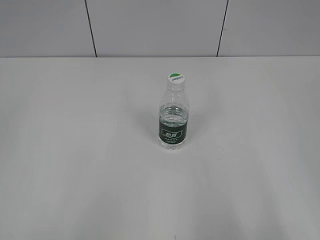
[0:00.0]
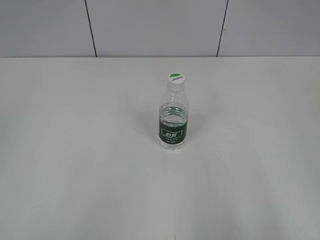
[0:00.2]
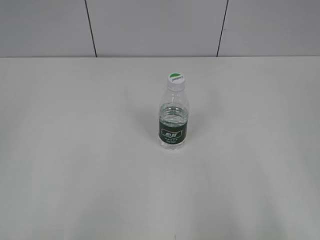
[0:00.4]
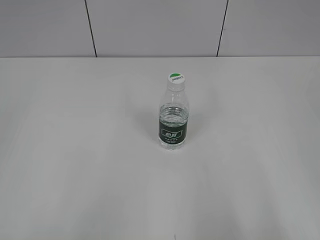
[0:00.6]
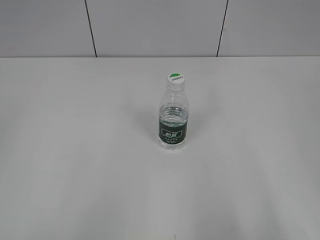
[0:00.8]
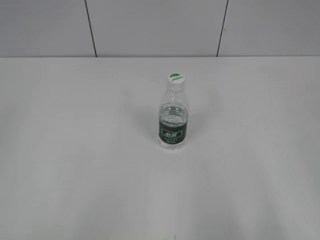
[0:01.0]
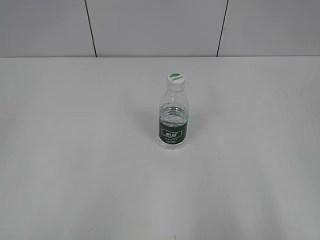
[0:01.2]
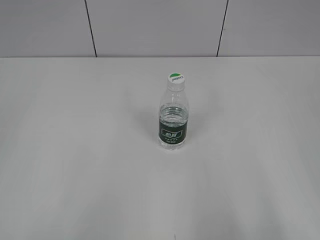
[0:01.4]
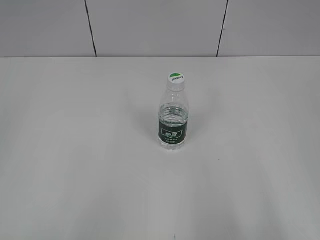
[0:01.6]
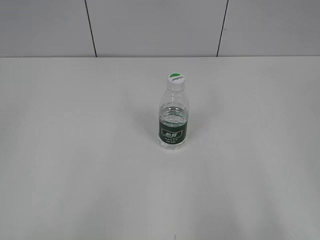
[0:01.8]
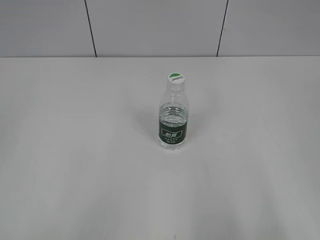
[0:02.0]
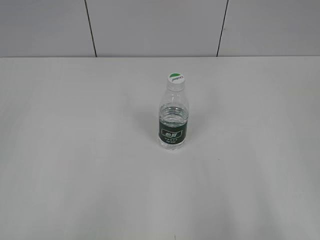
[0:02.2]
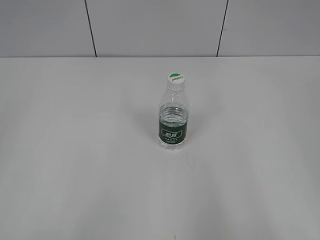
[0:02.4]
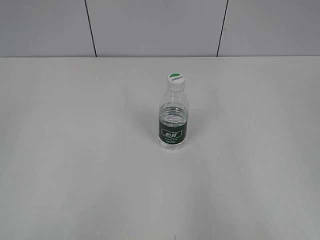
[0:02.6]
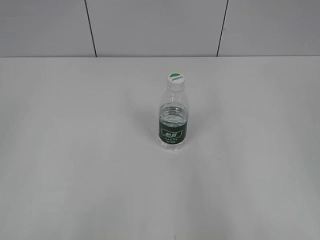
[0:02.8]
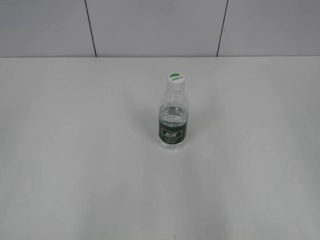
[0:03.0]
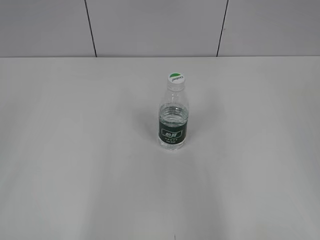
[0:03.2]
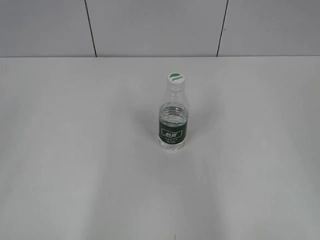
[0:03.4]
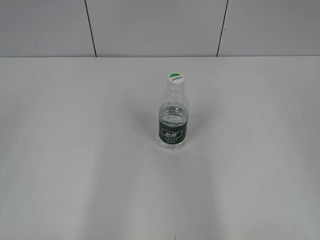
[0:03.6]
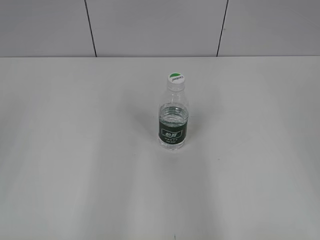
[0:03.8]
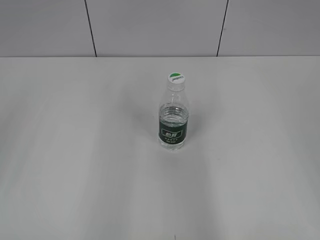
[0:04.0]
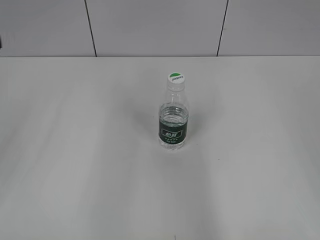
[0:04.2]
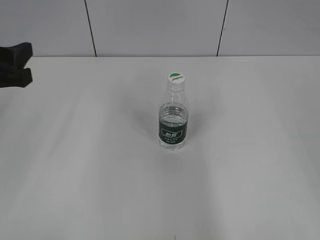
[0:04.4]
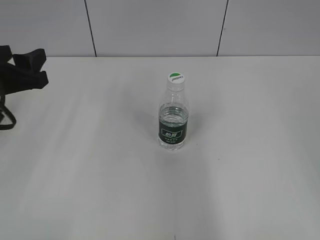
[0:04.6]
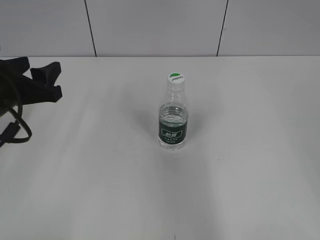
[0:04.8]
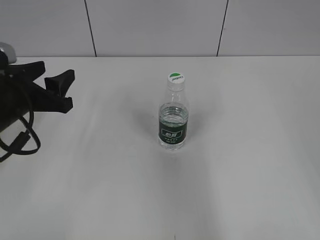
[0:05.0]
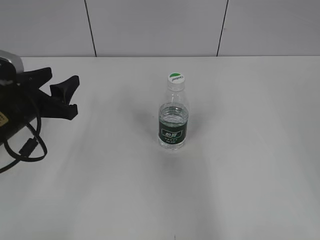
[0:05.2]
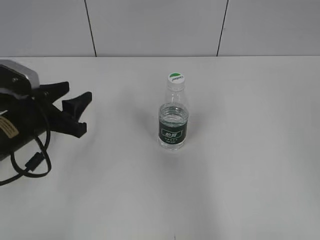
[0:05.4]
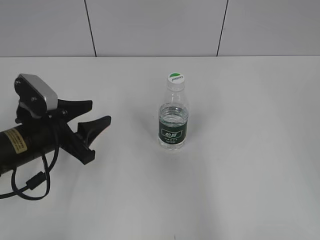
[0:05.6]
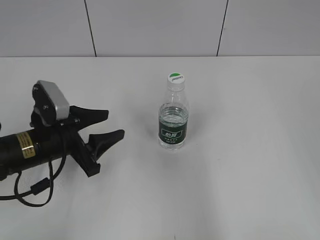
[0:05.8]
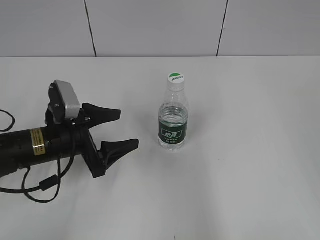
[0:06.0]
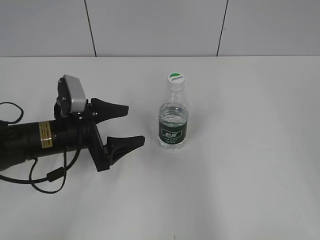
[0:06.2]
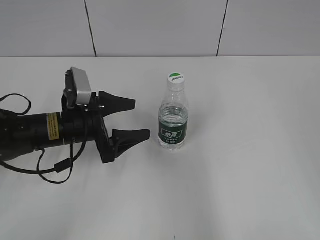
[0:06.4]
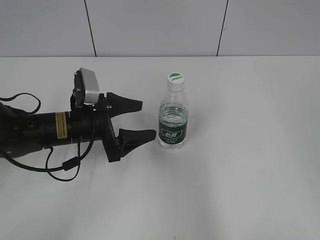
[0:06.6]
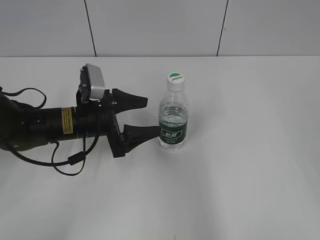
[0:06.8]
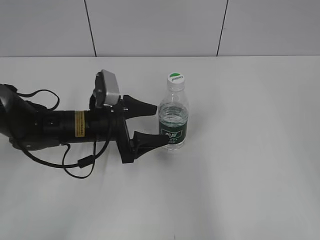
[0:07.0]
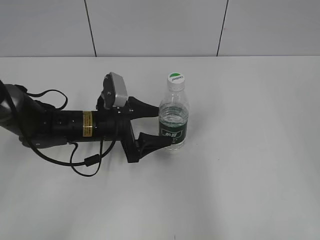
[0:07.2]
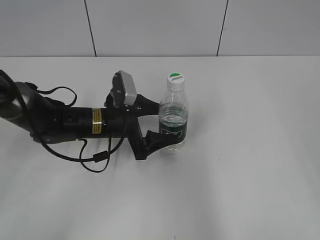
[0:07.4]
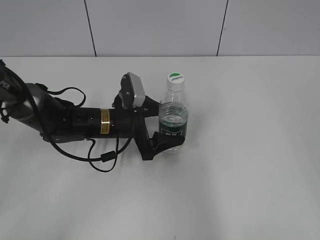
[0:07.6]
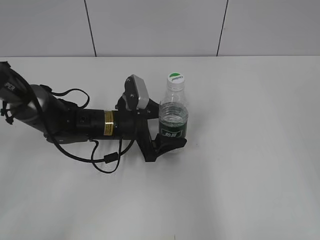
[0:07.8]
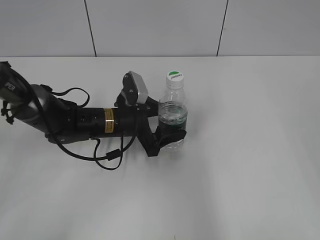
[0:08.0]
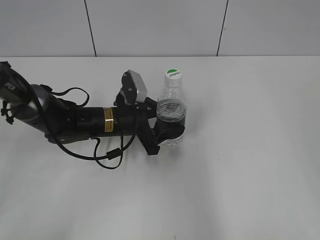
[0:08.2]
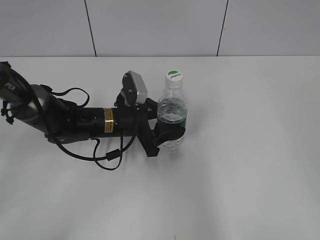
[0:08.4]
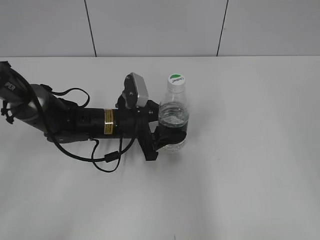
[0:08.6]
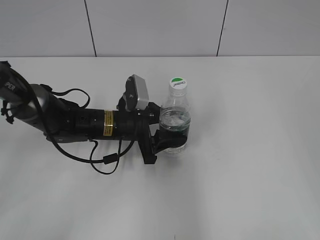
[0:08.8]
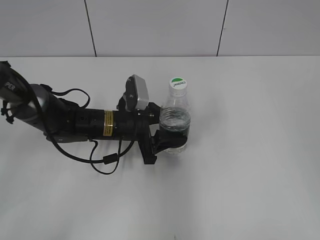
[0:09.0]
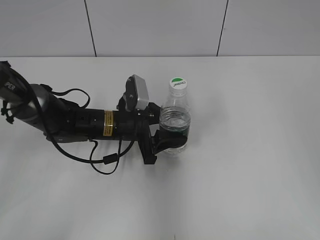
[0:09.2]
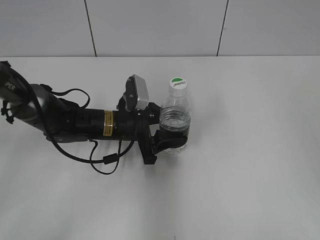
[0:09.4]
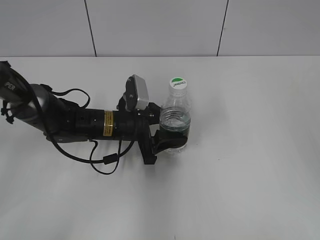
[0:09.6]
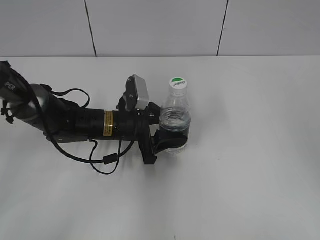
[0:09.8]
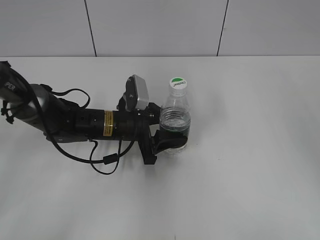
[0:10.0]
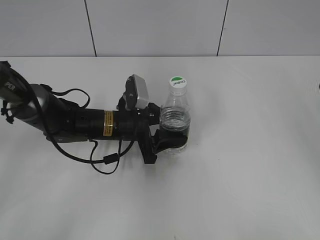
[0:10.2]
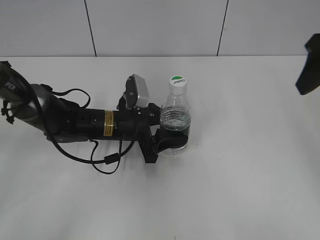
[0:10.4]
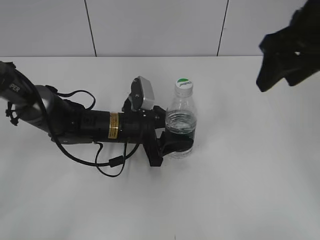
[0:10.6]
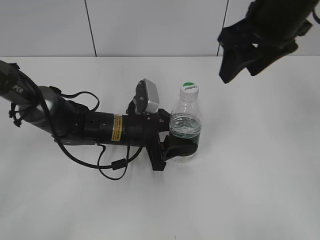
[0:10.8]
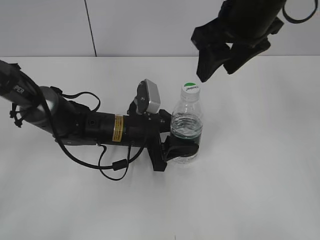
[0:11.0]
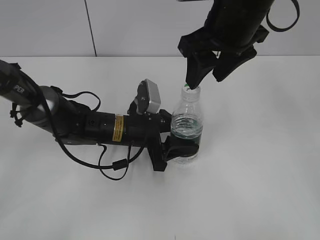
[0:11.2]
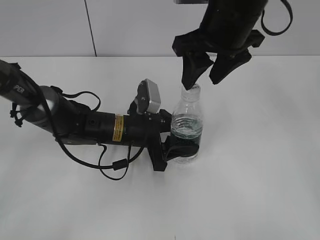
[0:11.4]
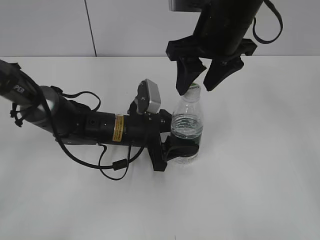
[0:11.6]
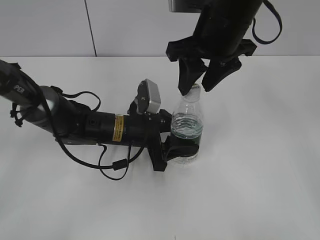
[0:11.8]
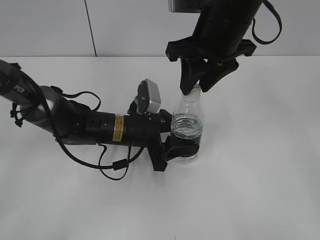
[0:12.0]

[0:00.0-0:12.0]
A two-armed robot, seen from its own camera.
Step, 0:00.0 to 0:08.6: Grasp the bottle and move it to the center of the table with the left gripper.
0:03.0 to 0:04.4: The left gripper travels forward by roughly 25 cm.
0:04.4 to 0:06.0: The left gripper travels downward and to the right by some 15 cm, and opens.
0:06.0 to 0:07.6: The left gripper is displaced to the right and forward by about 10 cm.
0:07.6 to 0:09.0: The left gripper closes up.
0:09.0 to 0:10.4: The right gripper is displaced forward by some 15 cm.
0:10.4 to 0:12.0: The right gripper is displaced to the left by roughly 15 cm, and closes its fingers.

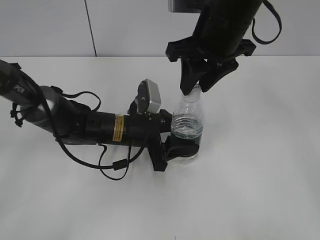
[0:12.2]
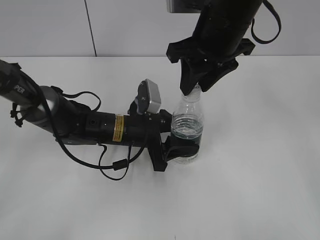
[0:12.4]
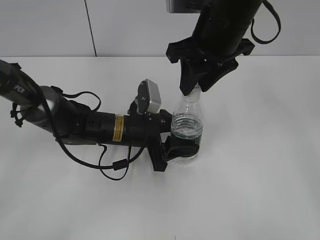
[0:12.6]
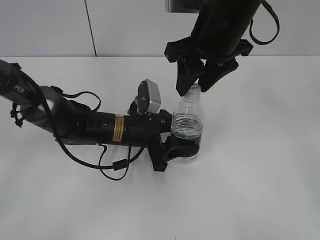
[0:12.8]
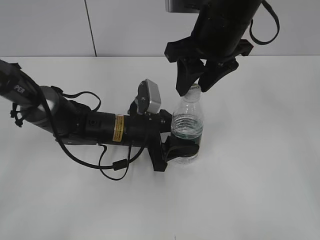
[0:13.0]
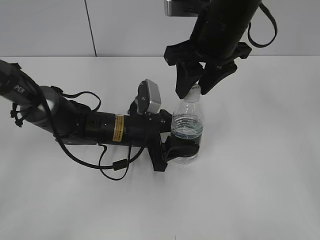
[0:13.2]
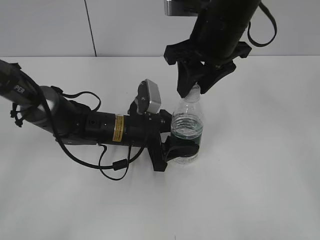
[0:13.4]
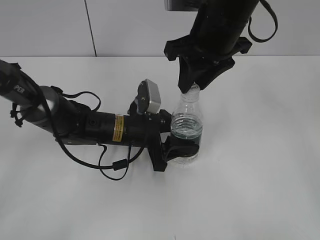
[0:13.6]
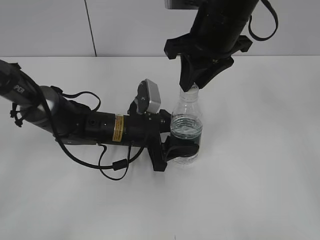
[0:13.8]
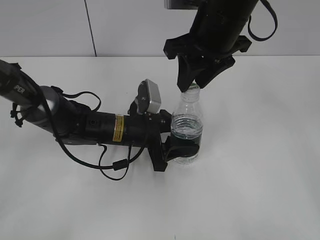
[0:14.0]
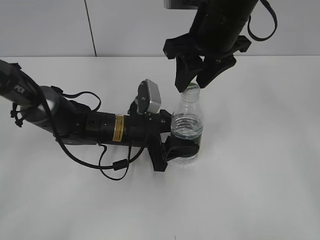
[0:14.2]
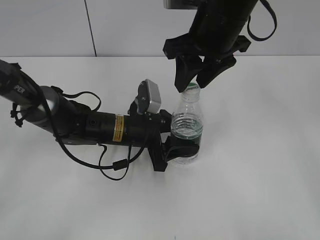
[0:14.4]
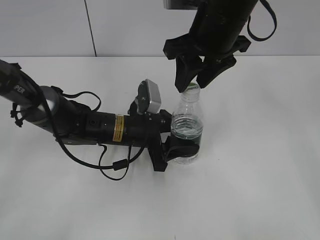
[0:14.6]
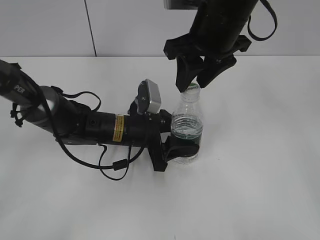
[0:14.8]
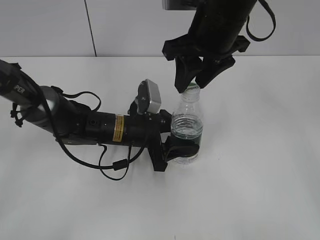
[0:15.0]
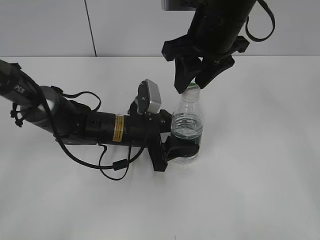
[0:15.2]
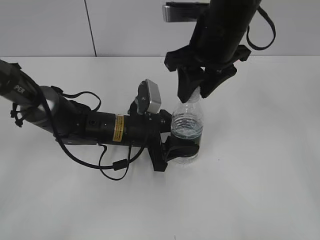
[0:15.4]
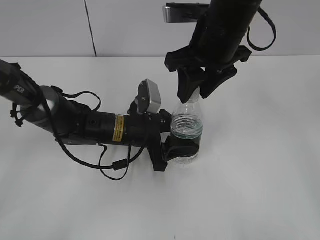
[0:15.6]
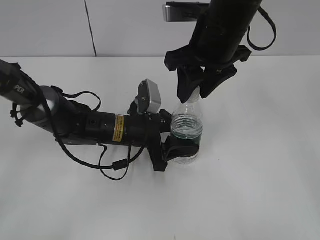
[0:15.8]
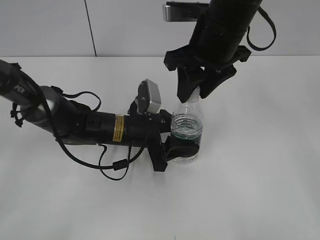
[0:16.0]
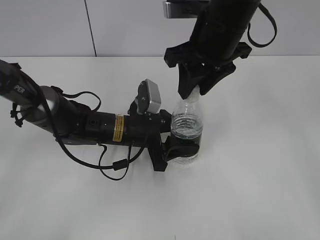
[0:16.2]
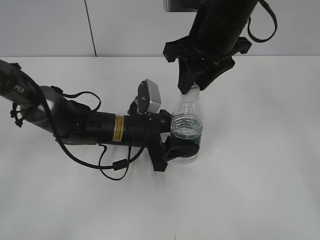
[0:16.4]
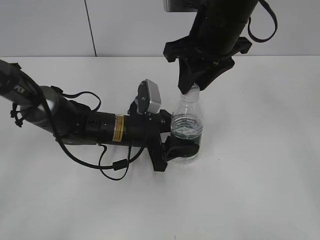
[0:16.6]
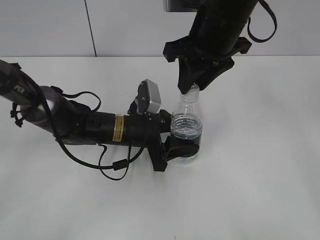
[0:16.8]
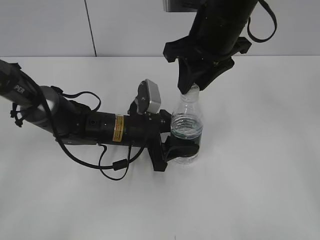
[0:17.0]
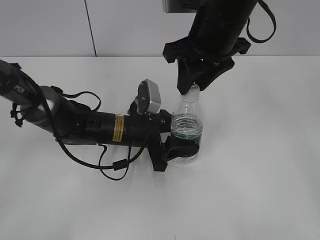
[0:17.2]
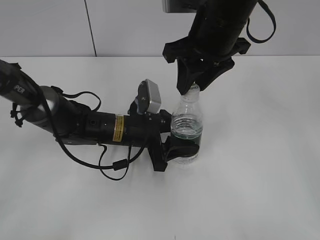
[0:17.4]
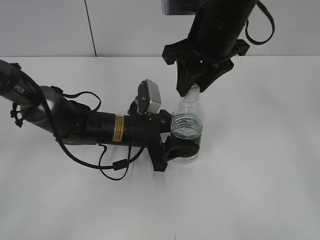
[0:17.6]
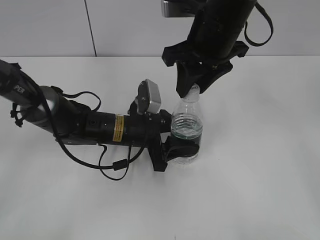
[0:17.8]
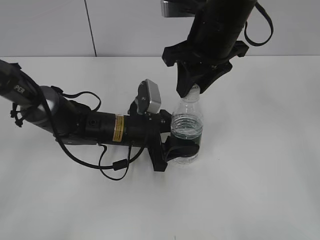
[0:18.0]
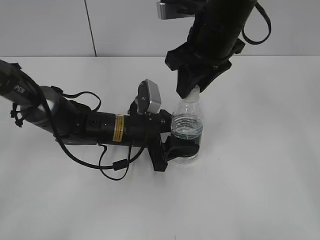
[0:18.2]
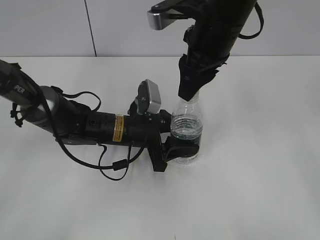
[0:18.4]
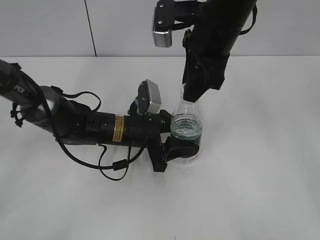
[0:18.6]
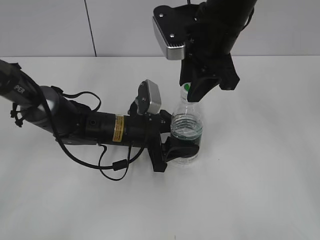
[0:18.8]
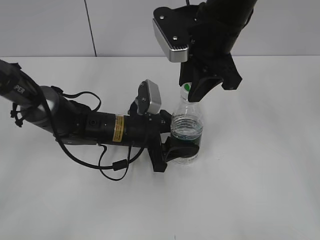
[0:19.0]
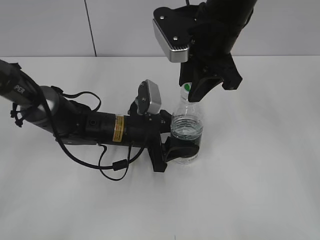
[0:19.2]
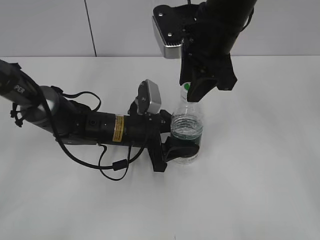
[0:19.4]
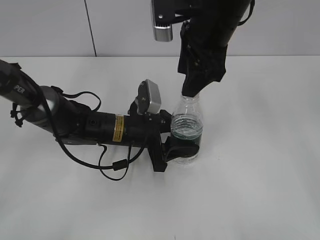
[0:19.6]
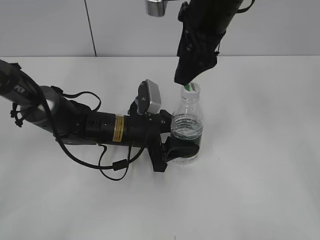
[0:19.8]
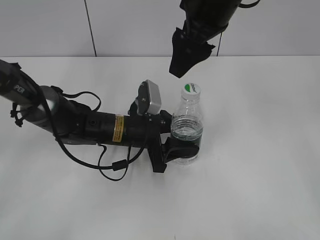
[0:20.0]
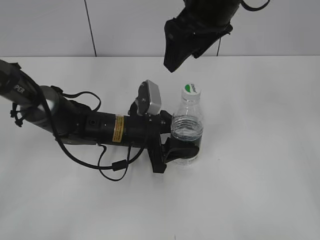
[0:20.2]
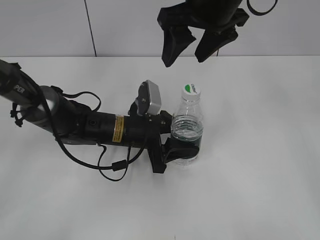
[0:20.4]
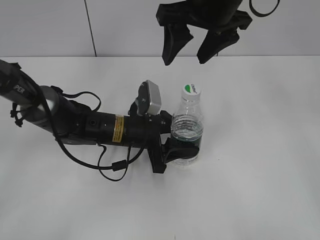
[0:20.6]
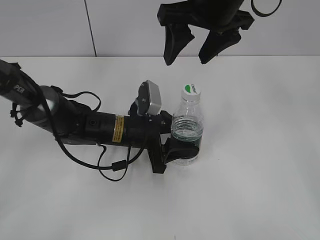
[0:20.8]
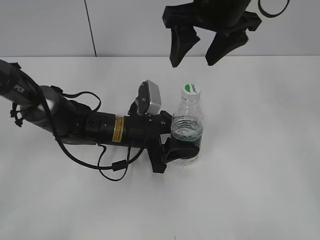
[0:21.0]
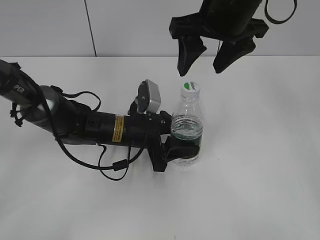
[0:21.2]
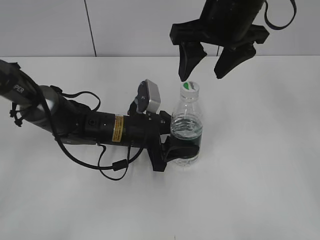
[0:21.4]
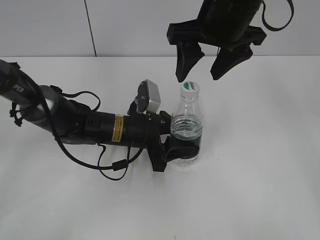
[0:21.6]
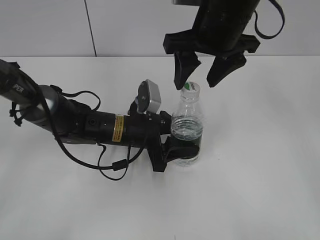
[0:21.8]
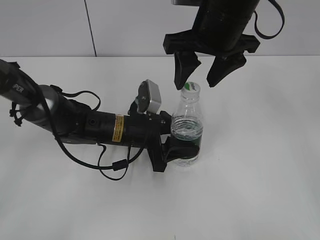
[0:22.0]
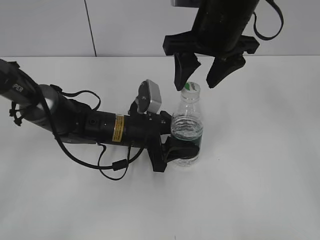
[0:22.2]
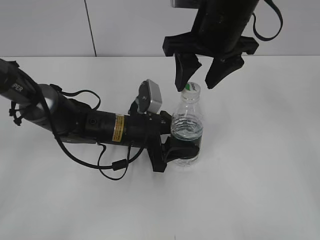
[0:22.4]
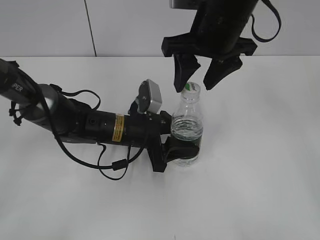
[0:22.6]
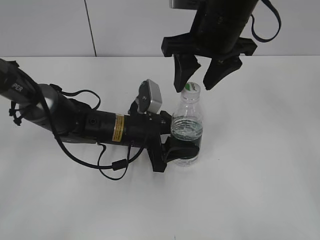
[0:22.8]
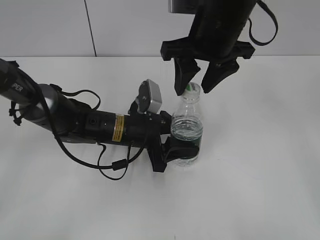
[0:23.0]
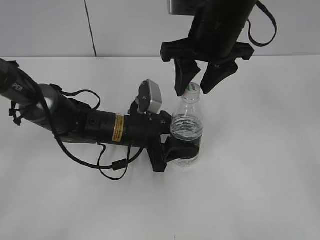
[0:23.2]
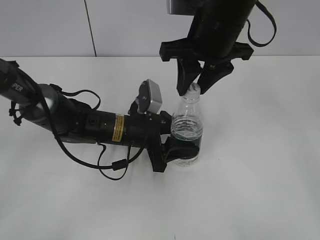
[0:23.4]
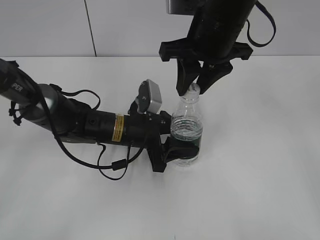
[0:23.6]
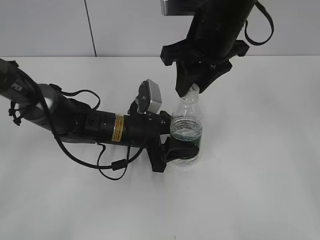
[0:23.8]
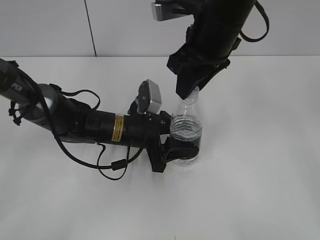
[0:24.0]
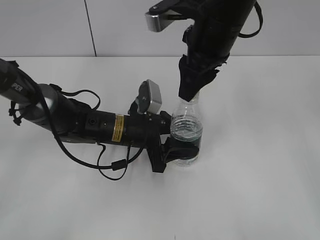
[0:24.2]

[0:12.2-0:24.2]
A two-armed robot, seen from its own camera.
0:12.2 to 0:16.6: Neither gripper changes place.
0:16.6 to 0:18.2: There are only small adjustments of the grippers.
0:18.2 to 0:19.8: The right gripper opens up.
0:21.2 to 0:22.6: There are only small adjustments of the grippers.
0:22.6 to 0:24.2: The right gripper closes its fingers.
